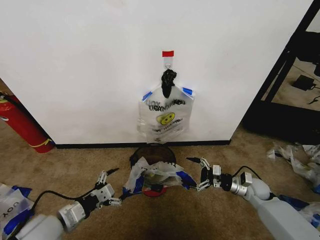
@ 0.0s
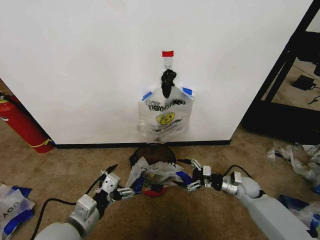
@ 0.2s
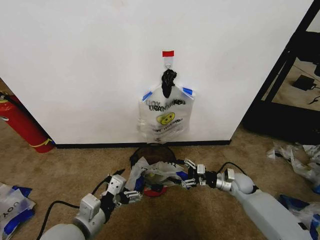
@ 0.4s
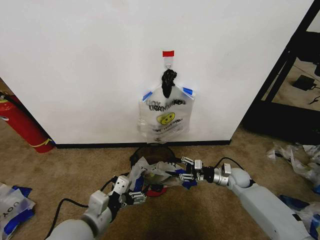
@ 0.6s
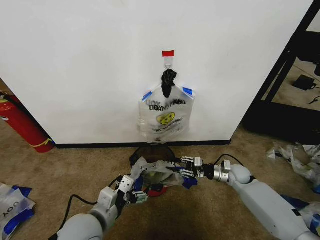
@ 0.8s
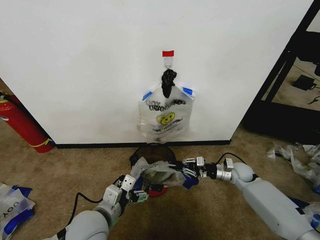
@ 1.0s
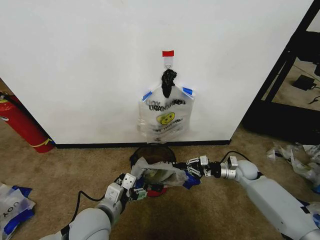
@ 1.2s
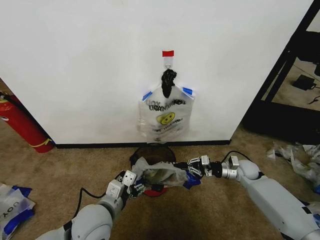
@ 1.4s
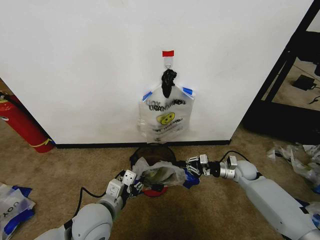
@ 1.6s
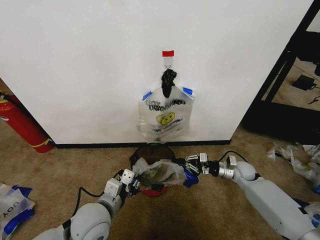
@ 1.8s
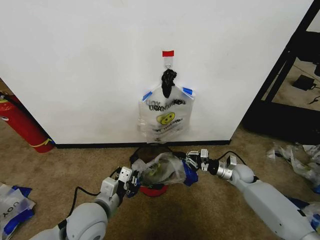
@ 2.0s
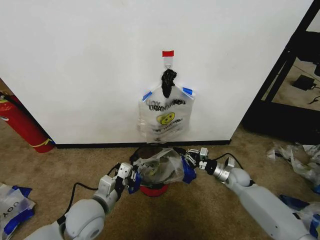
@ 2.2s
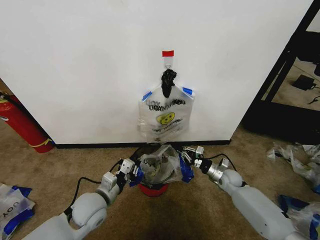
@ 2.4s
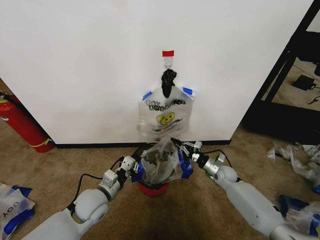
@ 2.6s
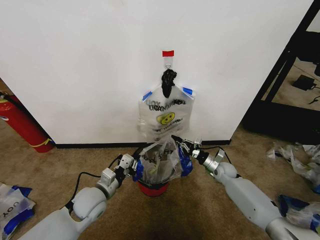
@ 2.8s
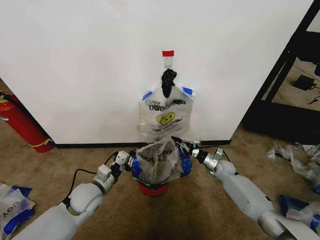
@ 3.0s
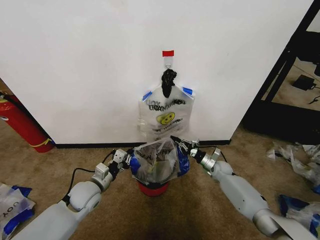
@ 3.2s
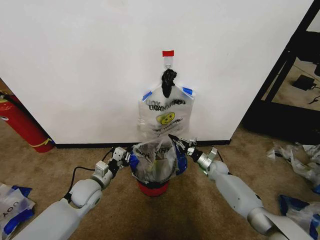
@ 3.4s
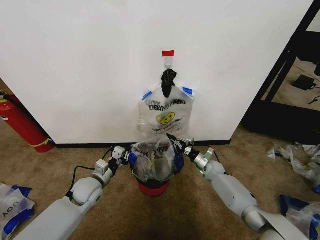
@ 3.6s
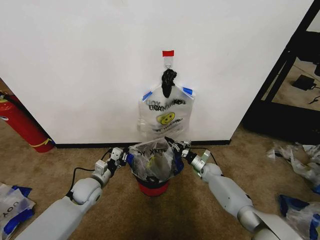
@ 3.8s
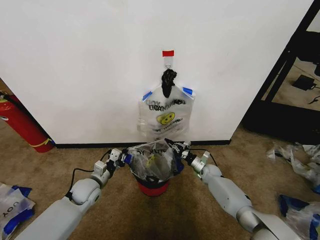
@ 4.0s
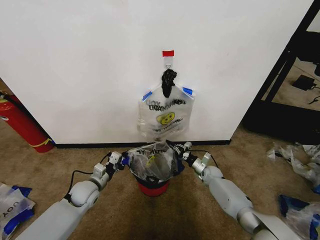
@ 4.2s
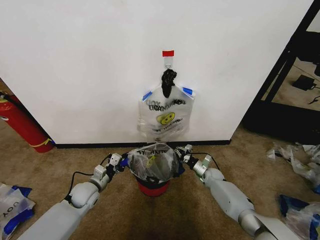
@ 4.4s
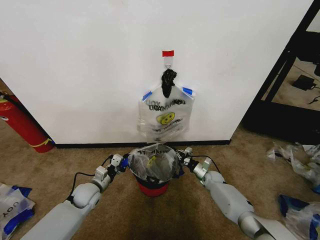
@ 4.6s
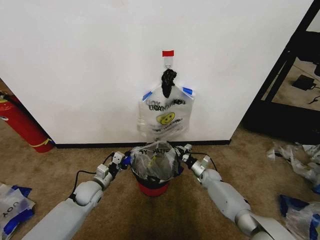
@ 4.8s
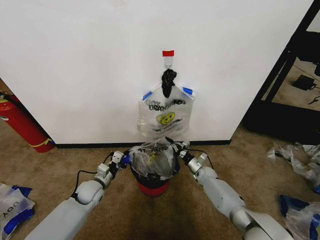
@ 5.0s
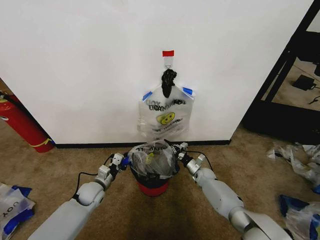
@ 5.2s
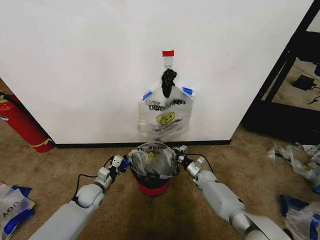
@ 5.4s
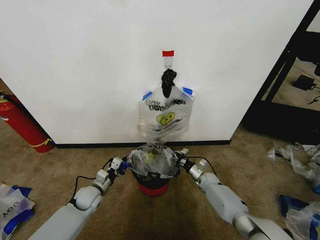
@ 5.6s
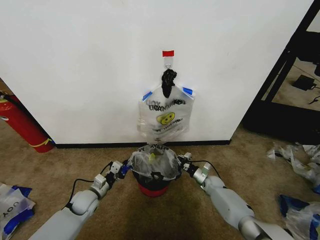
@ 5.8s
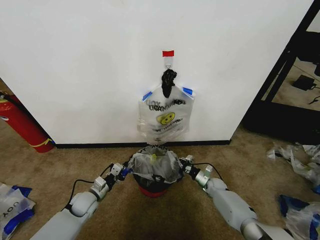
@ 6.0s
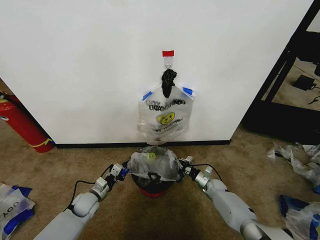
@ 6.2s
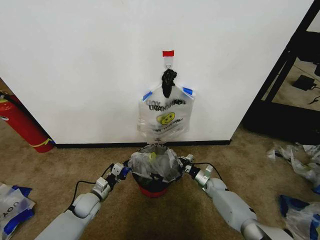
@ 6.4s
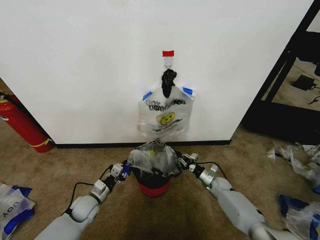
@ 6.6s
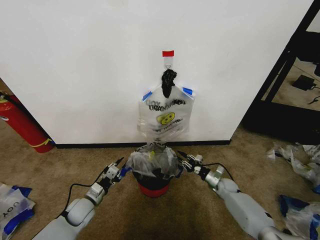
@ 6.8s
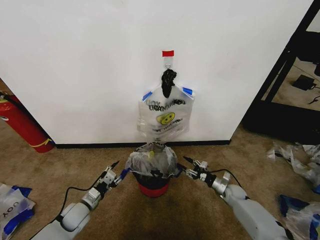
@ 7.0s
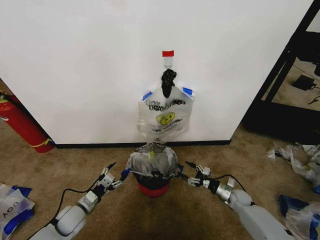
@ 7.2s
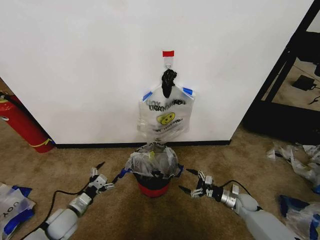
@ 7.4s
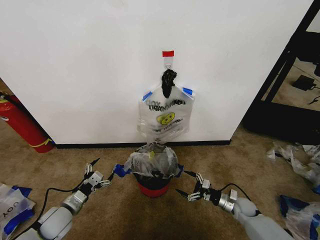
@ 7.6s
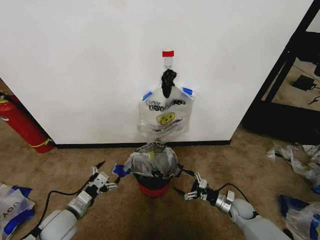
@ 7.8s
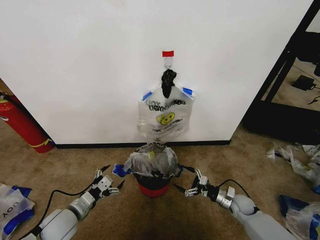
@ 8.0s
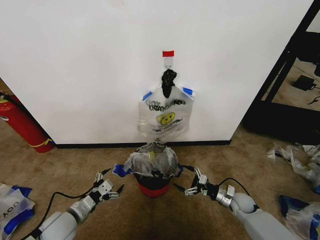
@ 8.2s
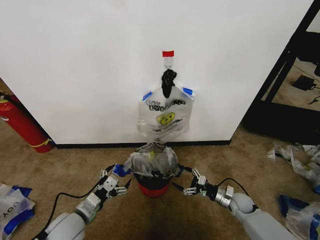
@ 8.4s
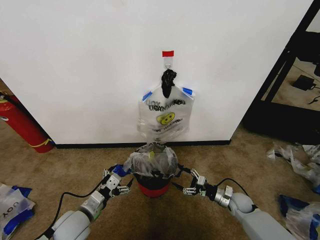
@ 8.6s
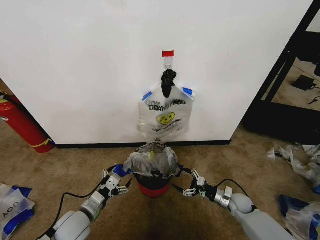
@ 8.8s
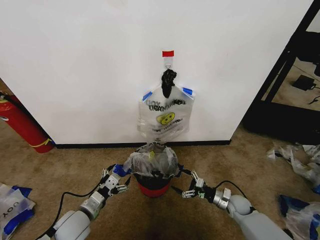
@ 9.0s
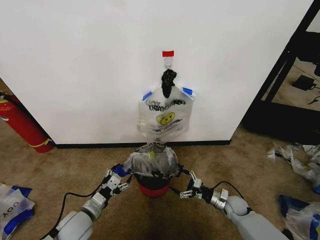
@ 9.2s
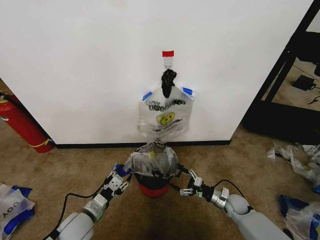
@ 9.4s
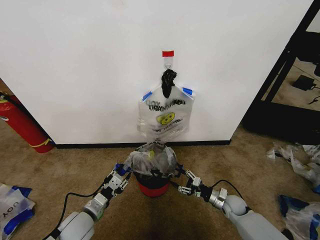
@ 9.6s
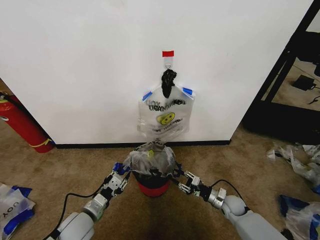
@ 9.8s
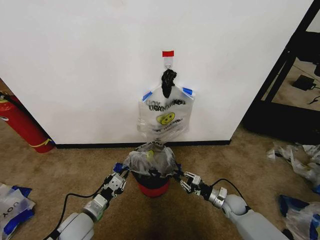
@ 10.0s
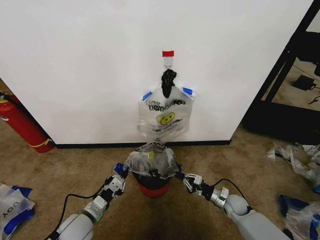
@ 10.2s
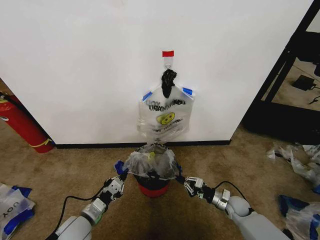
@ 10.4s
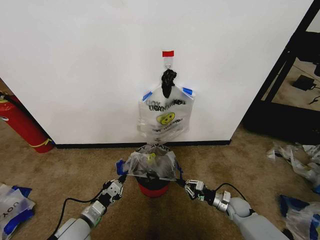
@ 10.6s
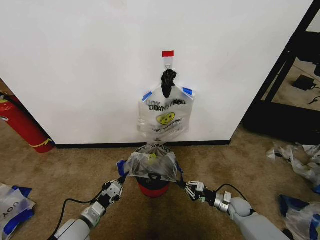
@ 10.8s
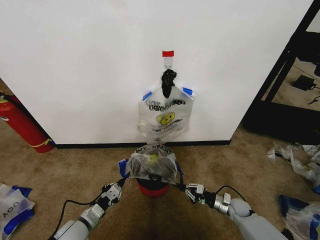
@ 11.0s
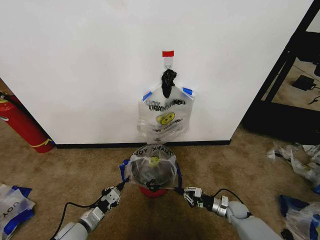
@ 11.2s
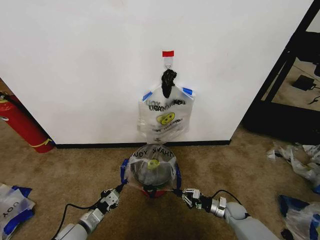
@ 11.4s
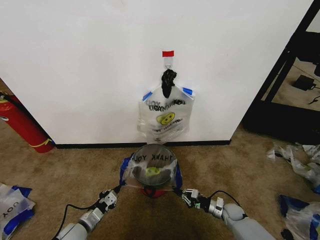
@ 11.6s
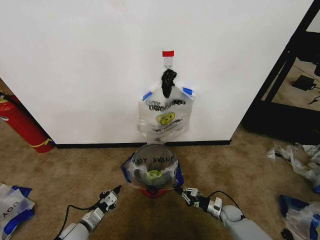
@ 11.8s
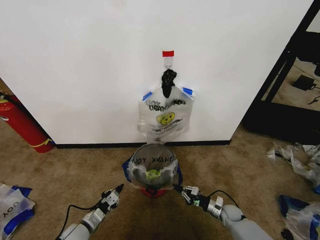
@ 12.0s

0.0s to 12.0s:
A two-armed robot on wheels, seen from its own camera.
Task of the whole recording: Pick up the garbage bag from the wall and place it over the trash bin.
0.0s to 1.6s: The left gripper travels to the right by roughly 15 cm, and closes. The right gripper heads forward, covering approximately 5 cm, and closes its fingers.
1.6s to 3.0s: The right gripper shifts about 5 cm downward. The left gripper travels forward, to the left and downward by about 15 cm, and closes up.
3.0s to 4.4s: The grippers both shift downward by about 5 cm.
4.4s to 6.0s: The grippers move only a little.
6.0s to 7.6s: The left gripper moves backward and upward, about 10 cm, and opens; the right gripper moves backward and to the right, some 15 cm, and opens.
7.6s to 9.0s: The left gripper goes about 10 cm to the right.
9.0s to 10.4s: The right gripper closes its fingers; the left gripper closes up.
10.4s to 12.0s: The two grippers go roughly 10 cm downward.

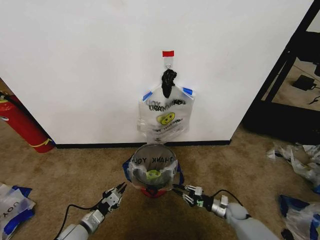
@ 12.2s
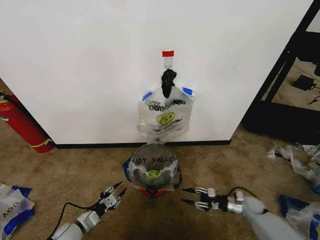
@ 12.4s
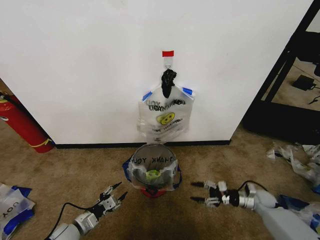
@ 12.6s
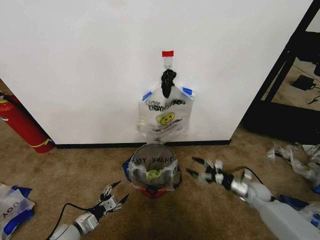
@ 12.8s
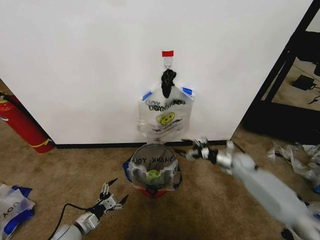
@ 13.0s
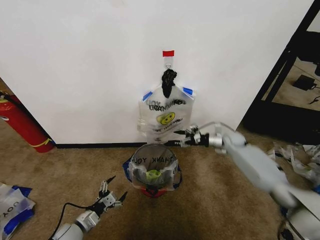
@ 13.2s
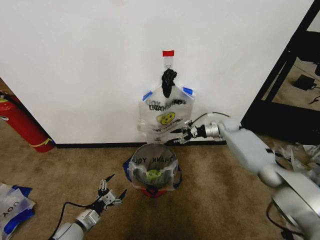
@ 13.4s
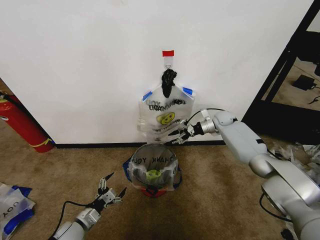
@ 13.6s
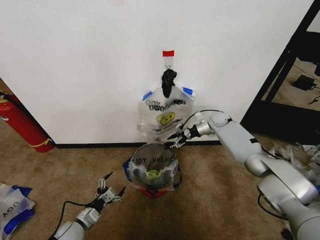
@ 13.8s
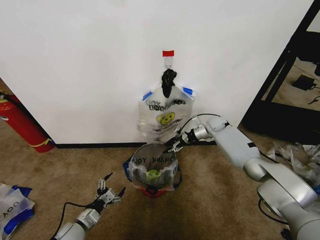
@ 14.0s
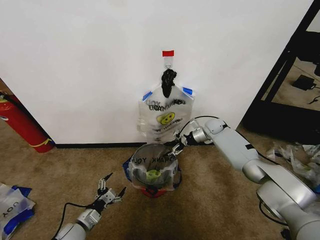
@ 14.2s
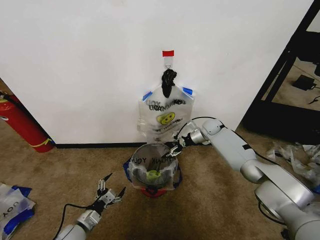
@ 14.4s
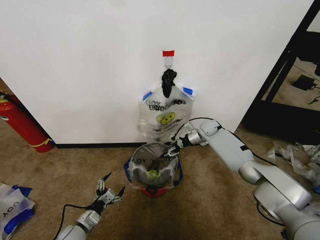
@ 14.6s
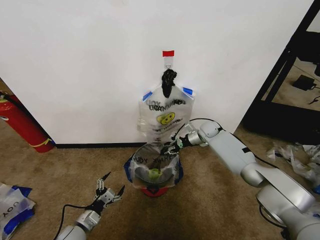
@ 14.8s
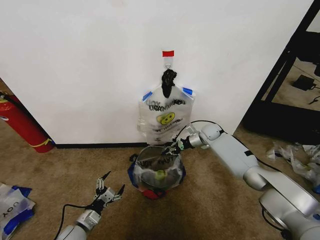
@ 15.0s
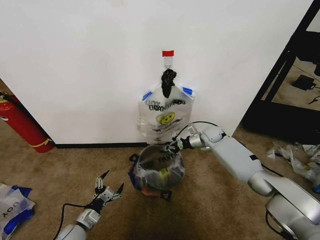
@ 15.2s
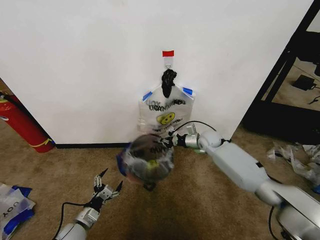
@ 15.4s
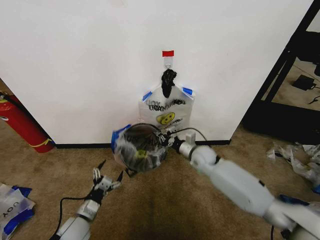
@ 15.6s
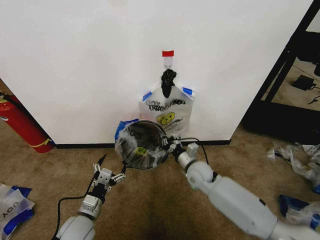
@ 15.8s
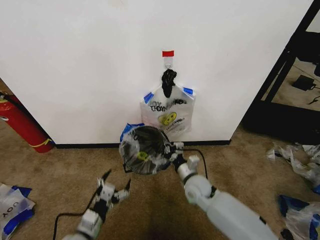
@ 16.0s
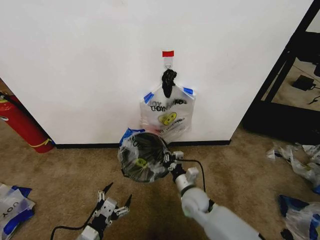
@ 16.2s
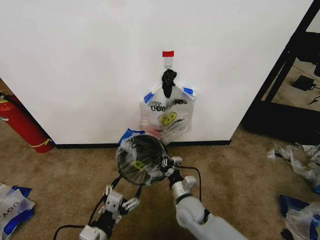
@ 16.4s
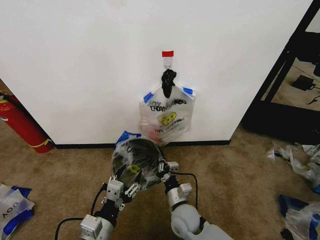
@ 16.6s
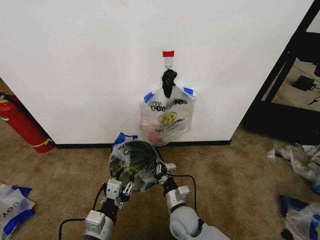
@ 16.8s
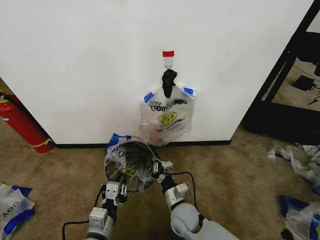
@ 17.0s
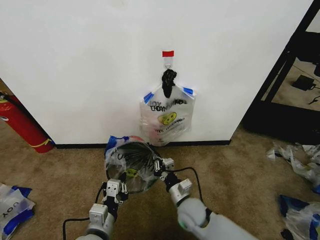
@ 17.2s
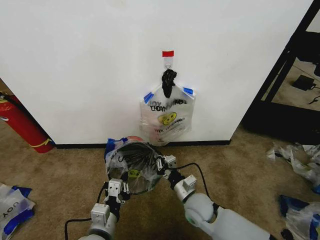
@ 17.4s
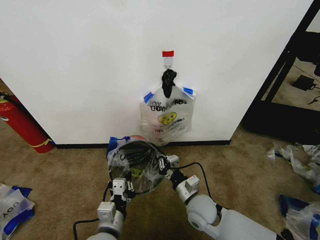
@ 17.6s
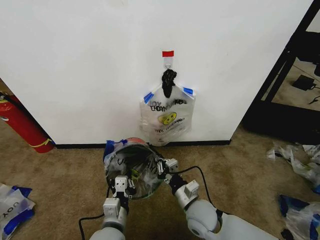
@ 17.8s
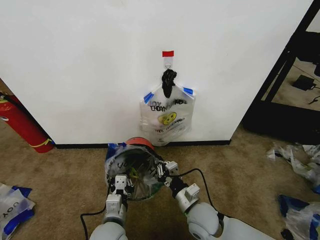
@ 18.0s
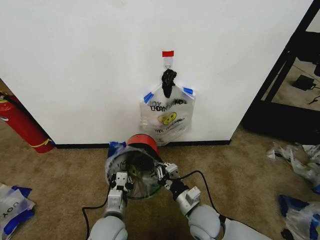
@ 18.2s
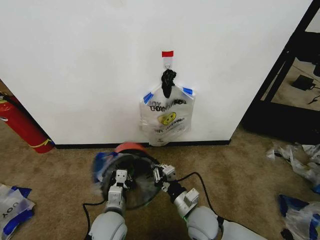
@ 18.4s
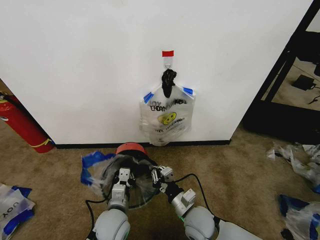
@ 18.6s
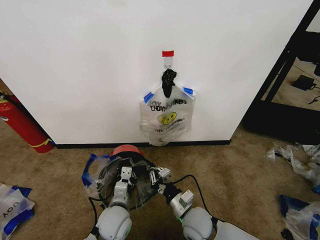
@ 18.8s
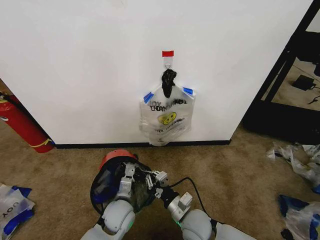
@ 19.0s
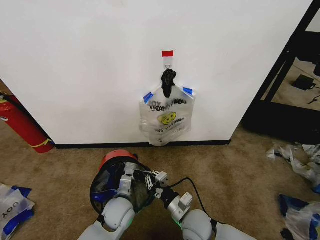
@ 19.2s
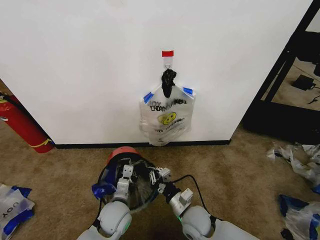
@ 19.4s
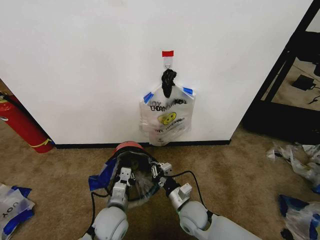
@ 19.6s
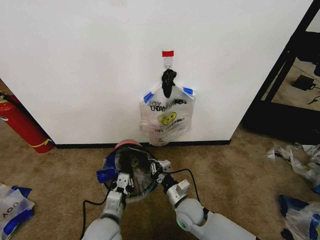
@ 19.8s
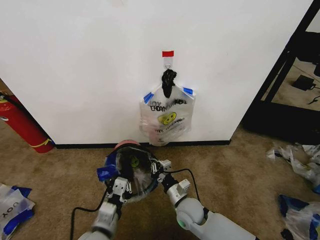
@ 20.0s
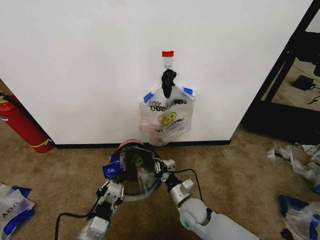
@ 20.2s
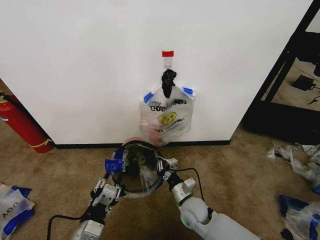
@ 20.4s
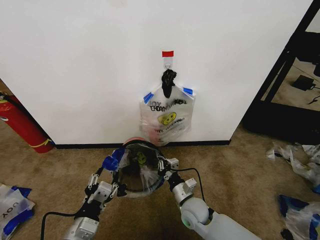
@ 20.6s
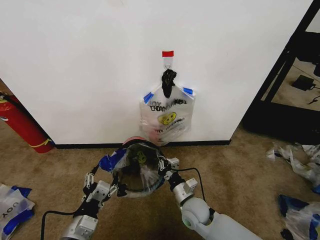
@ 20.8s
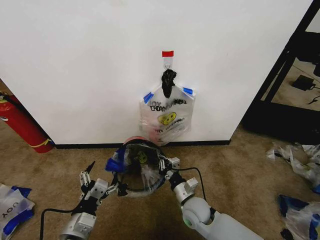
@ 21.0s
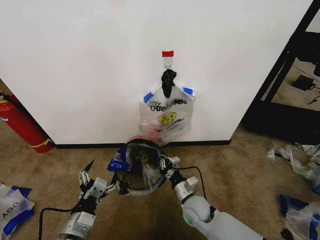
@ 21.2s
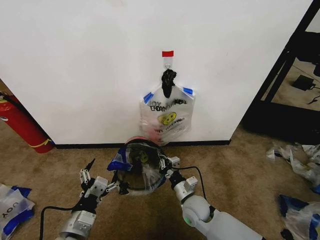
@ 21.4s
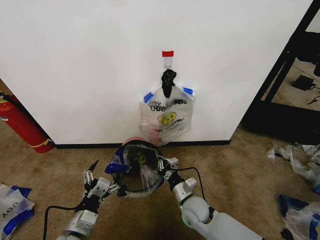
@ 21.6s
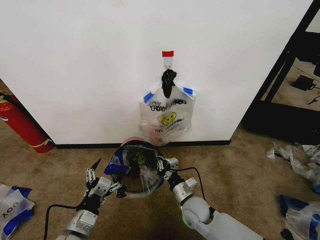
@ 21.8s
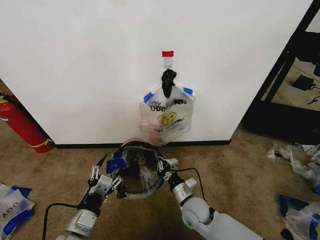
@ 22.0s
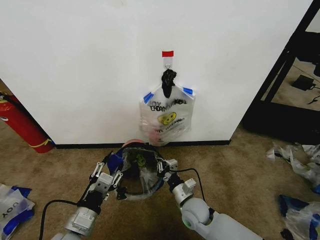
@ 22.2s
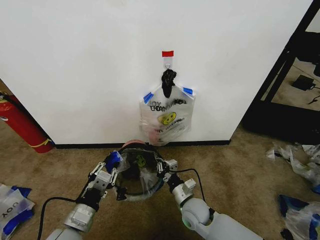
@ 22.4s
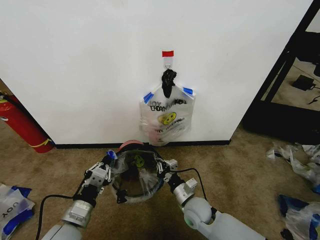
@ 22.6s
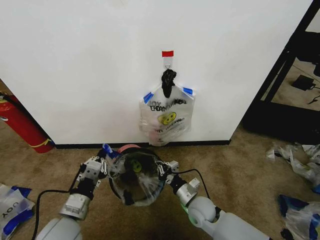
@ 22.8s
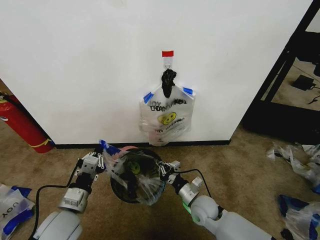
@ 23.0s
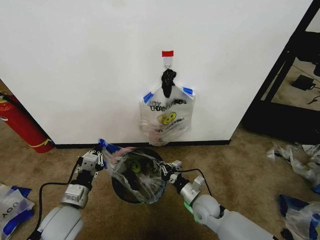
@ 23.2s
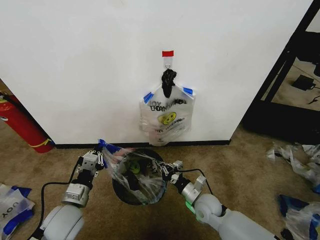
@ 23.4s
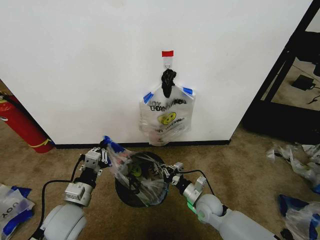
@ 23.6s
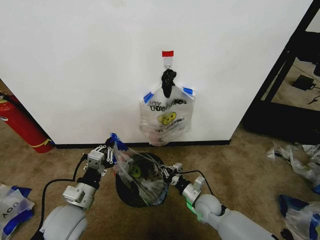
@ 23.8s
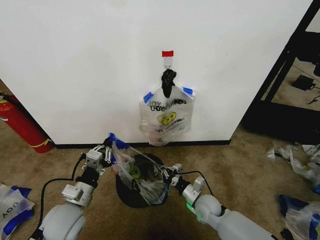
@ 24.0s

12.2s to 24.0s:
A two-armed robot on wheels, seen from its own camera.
Task of the whole recording: Pick up the garbage bag from the wall and place it over the trash bin.
12.2s to 13.6s: The right gripper is displaced forward and upward by some 40 cm, and opens up, while the left gripper opens.
13.6s to 15.2s: The right gripper moves backward, to the left and downward, some 10 cm, and closes up.
15.2s to 16.6s: The left gripper heads upward, to the right and backward, covering approximately 20 cm, and closes its fingers. The right gripper is displaced backward and to the left by roughly 35 cm.
16.6s to 18.2s: The left gripper goes some 10 cm forward and downward, and closes. Meanwhile the right gripper travels to the right by about 5 cm.
18.2s to 19.6s: The right gripper ends up some 5 cm from where it was.
19.6s to 21.0s: The left gripper is displaced backward, to the left and upward by some 15 cm, and opens up.
21.0s to 22.6s: The left gripper closes.
22.6s to 24.0s: The right gripper shifts some 5 cm to the right. Meanwhile the left gripper heads forward, covering some 5 cm.
